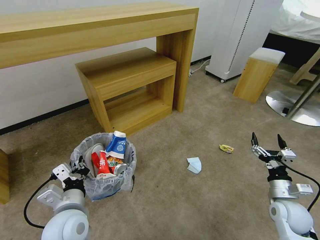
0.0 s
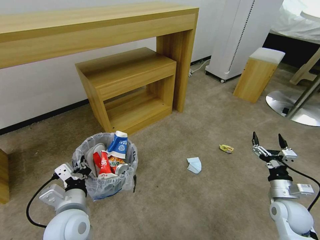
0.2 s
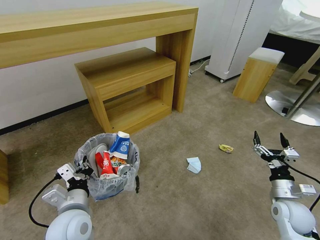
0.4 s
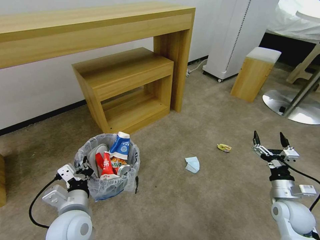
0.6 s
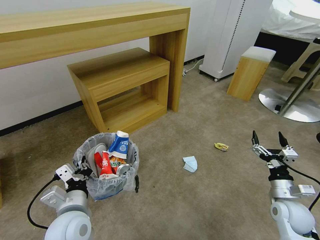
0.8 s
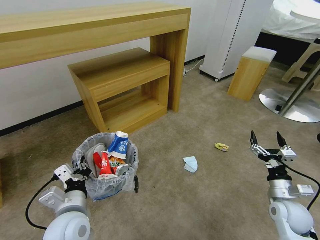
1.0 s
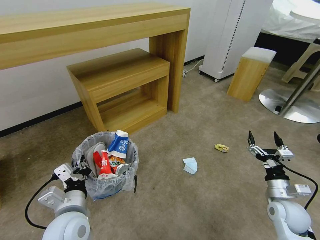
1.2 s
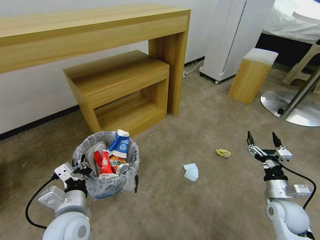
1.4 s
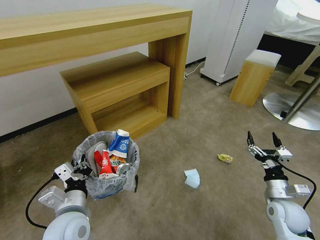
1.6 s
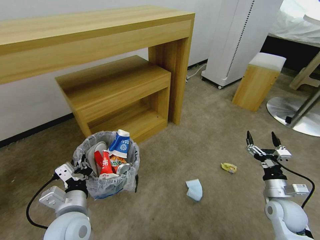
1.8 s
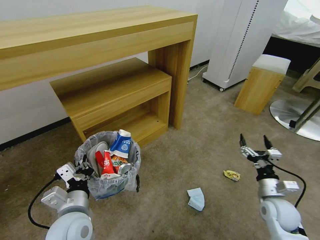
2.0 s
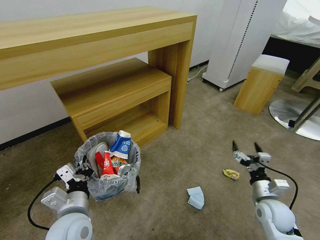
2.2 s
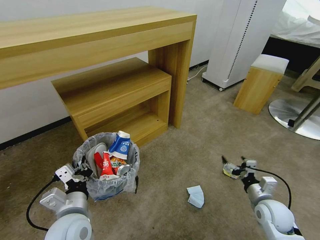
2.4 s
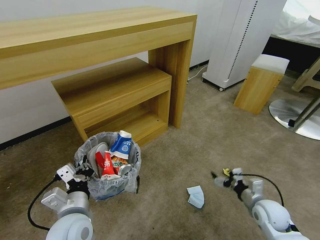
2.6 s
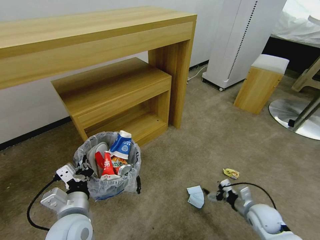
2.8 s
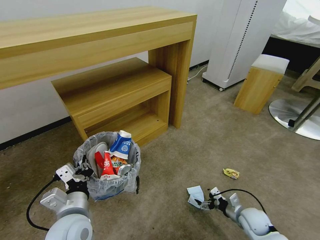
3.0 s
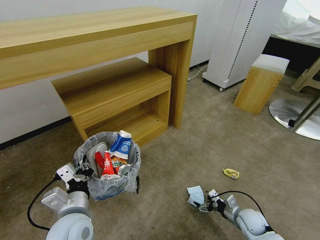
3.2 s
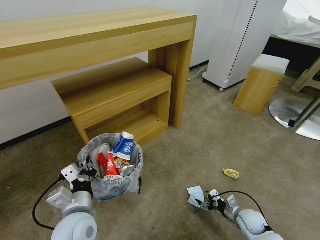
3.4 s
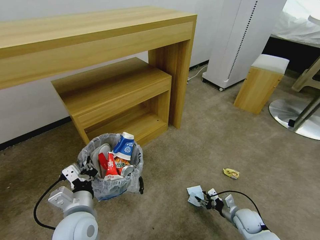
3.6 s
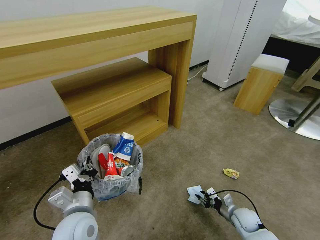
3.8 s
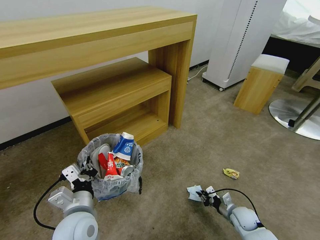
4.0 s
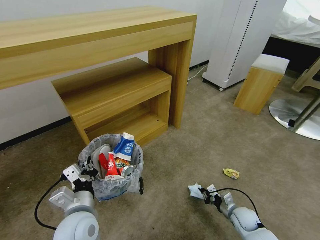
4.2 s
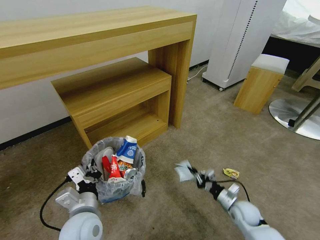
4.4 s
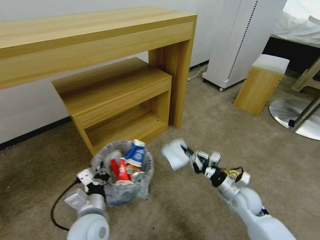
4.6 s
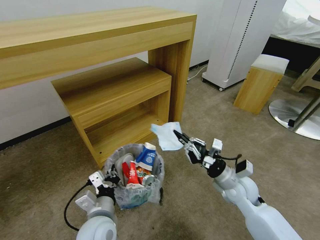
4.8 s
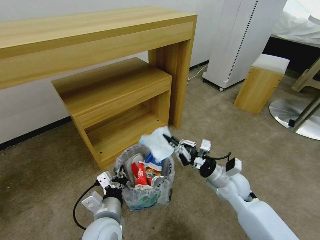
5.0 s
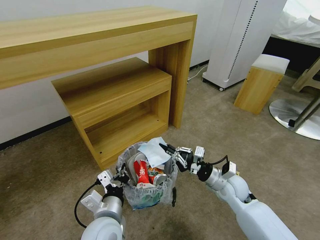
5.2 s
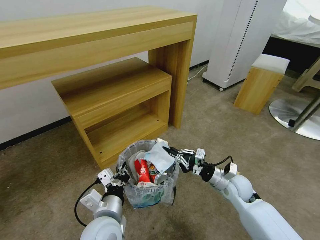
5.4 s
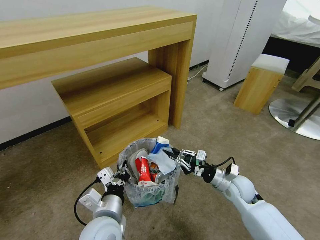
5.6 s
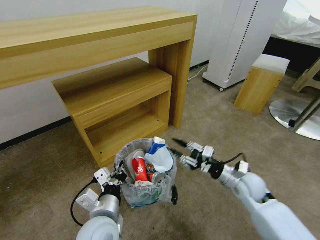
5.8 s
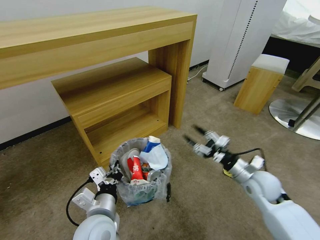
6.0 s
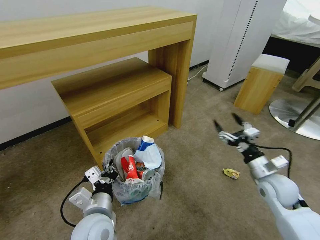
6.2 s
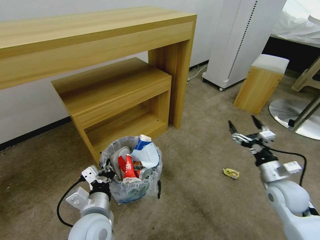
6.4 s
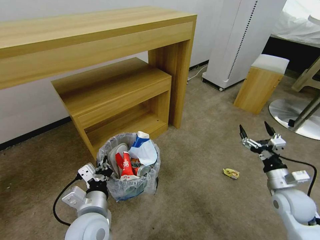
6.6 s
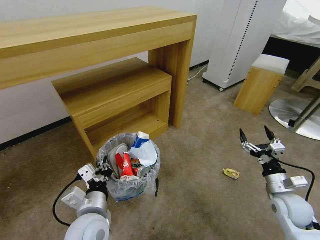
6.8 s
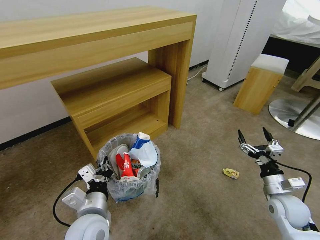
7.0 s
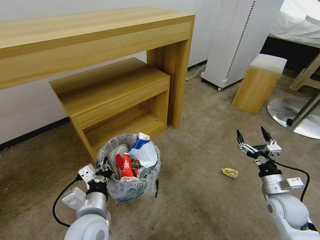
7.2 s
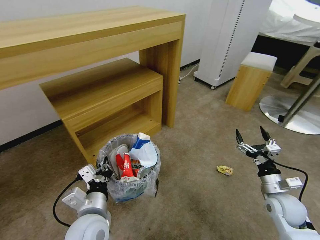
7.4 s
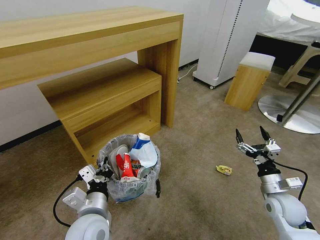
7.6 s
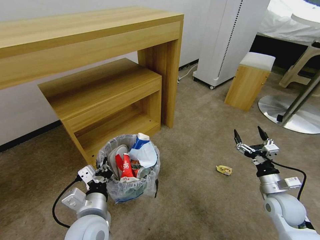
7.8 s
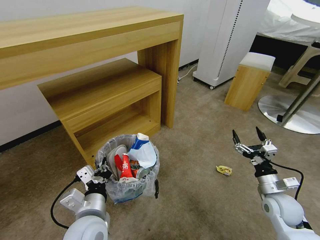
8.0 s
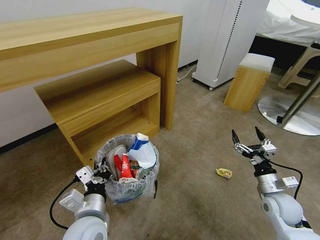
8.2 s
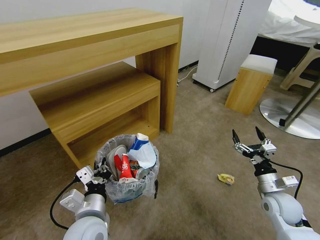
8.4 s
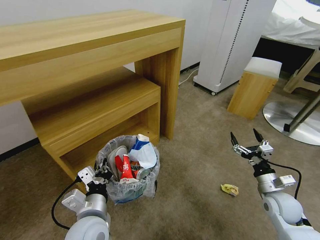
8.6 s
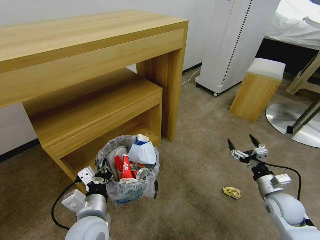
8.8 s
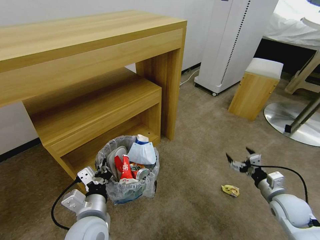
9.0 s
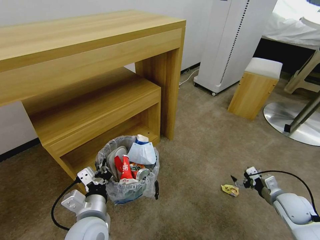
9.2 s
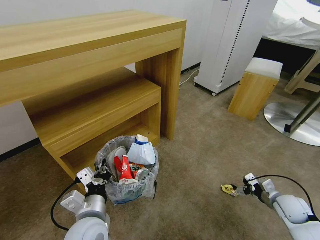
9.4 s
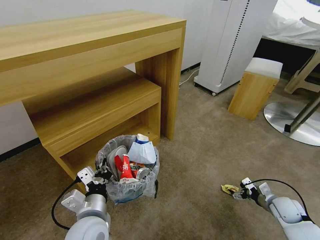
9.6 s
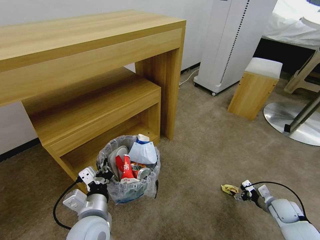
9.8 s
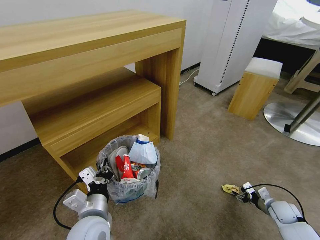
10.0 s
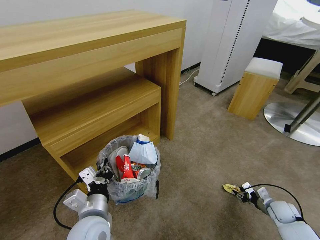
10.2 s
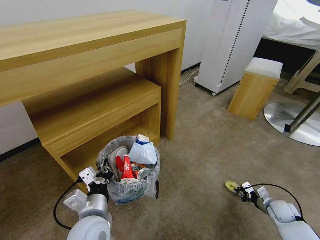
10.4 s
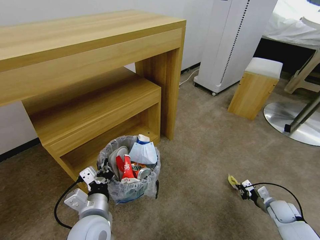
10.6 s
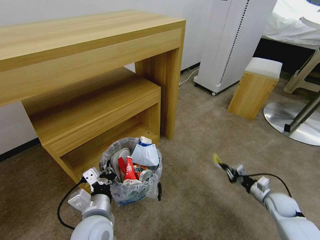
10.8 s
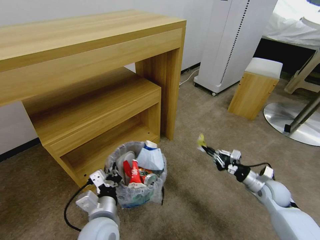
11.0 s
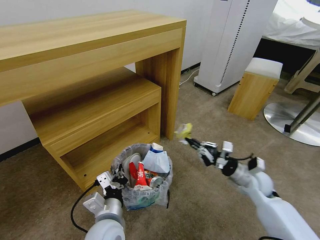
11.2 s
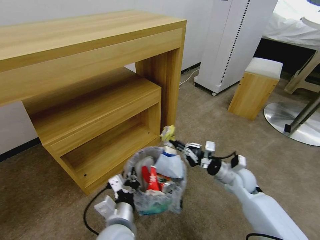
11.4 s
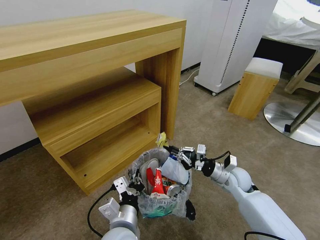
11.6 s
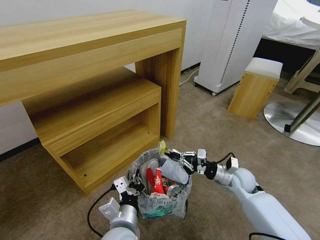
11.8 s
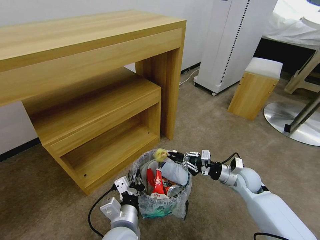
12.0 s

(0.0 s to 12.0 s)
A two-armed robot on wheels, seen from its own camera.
Task of the whole recording: Pick up the trash bin and place the garbage on the floor into it.
1.6 s - 3.0 s: The right gripper shifts some 10 cm downward.
3.0 s - 4.4 s: The right gripper closes.
4.4 s - 6.0 s: The right gripper moves upward, roughly 20 cm, and opens up.
6.0 s - 7.6 s: The right gripper heads to the right and backward, covering roughly 10 cm, and opens.
9.0 s - 10.4 s: The right gripper is displaced downward and to the right by approximately 15 cm, and closes.
10.4 s - 12.0 s: The left gripper shifts roughly 10 cm to the right. Meanwhile the right gripper goes roughly 25 cm to the left and upward.

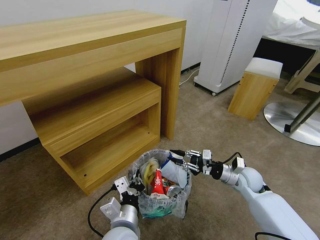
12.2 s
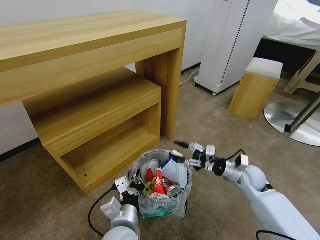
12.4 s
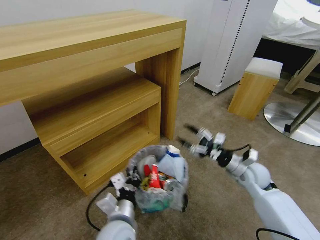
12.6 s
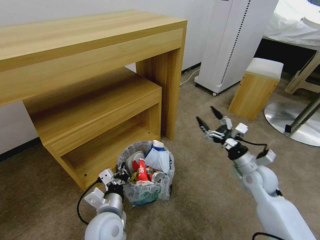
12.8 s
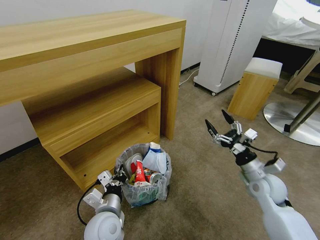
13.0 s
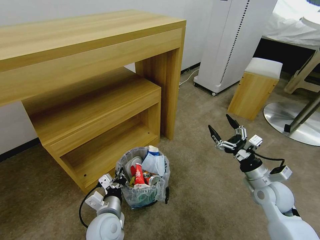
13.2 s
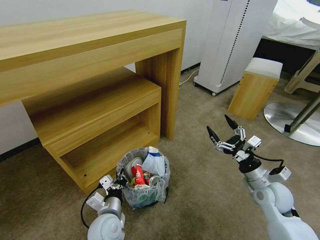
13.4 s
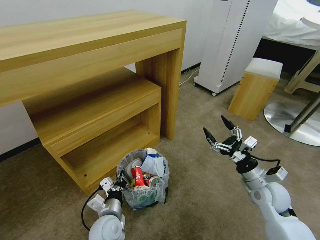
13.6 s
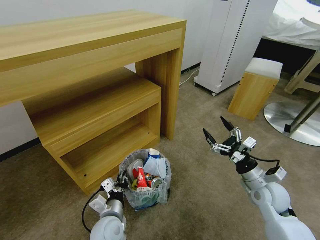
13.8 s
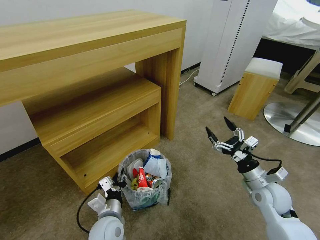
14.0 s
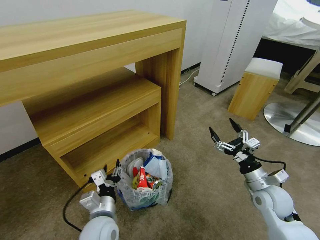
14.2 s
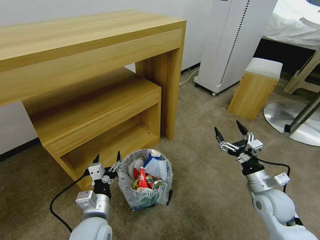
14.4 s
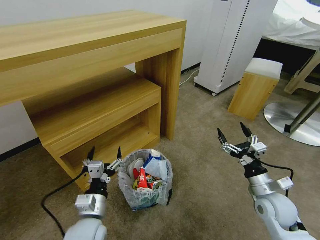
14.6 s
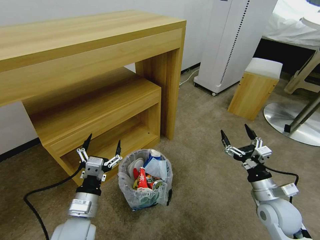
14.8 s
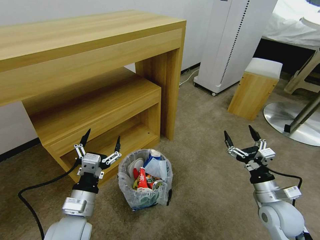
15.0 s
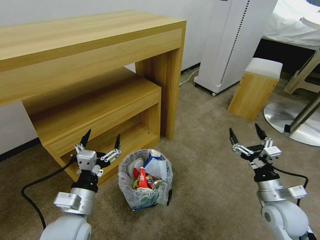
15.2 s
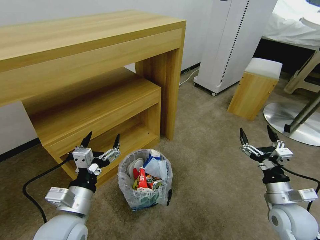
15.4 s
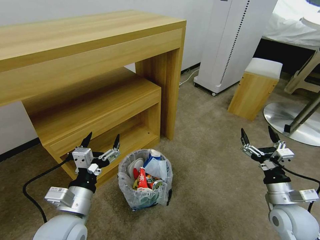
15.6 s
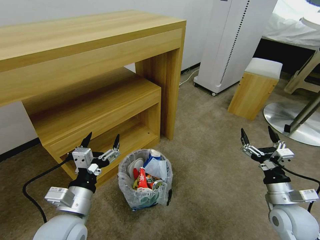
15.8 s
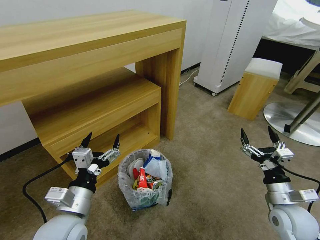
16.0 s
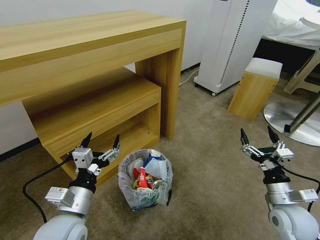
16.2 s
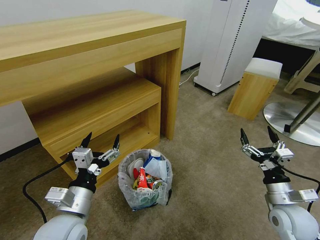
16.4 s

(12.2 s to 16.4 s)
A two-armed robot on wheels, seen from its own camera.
Task of the whole recording: Pick up the trash bin and place the garbage on the floor into it.
12.2 s - 13.6 s: The right gripper travels backward by about 5 cm, and opens its fingers, while the left gripper is displaced downward, to the left and forward by some 10 cm.
13.6 s - 15.0 s: The right gripper travels backward by some 5 cm. Meanwhile the left gripper goes approximately 15 cm upward and to the left, and opens.

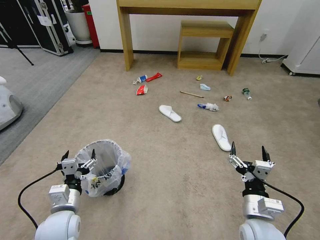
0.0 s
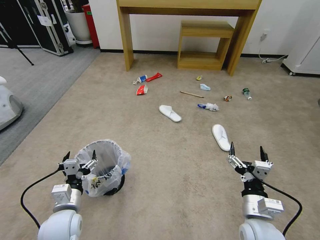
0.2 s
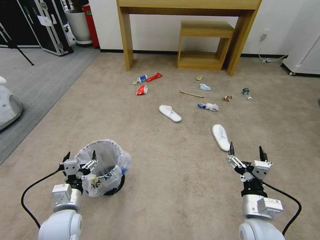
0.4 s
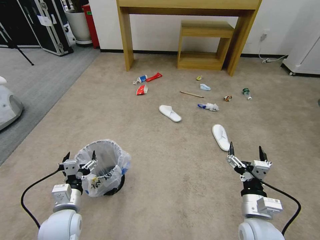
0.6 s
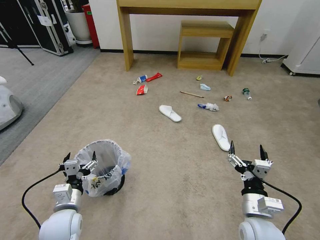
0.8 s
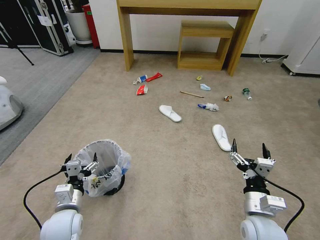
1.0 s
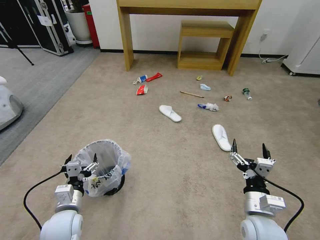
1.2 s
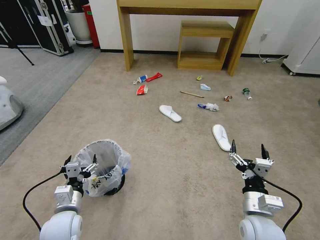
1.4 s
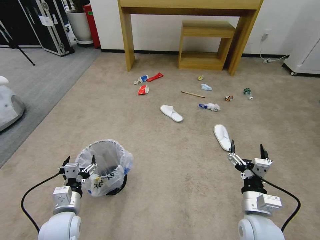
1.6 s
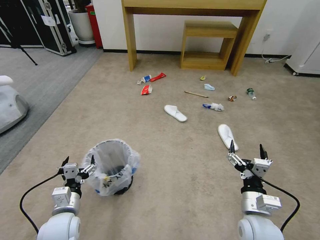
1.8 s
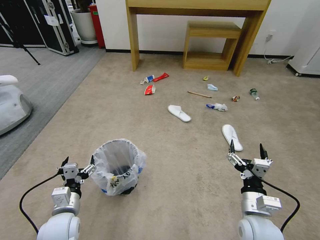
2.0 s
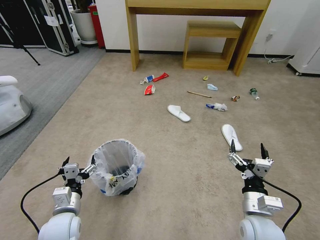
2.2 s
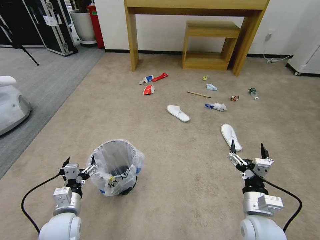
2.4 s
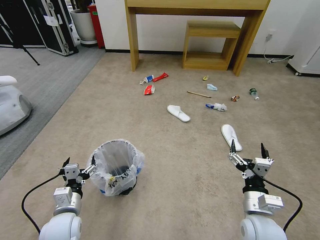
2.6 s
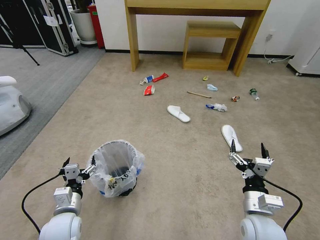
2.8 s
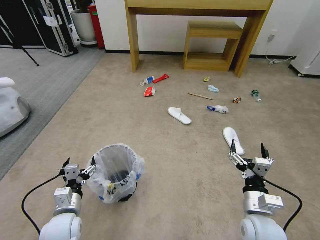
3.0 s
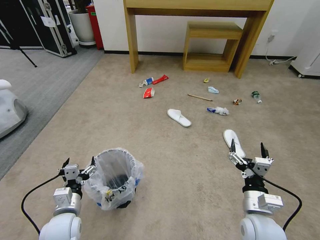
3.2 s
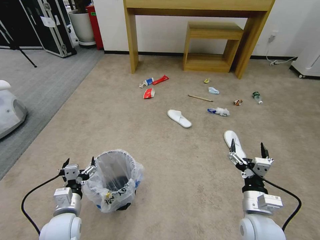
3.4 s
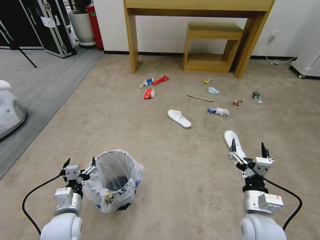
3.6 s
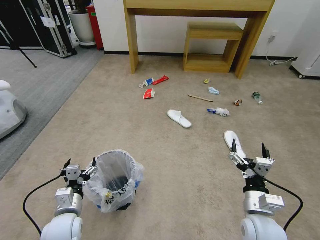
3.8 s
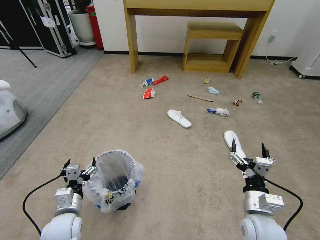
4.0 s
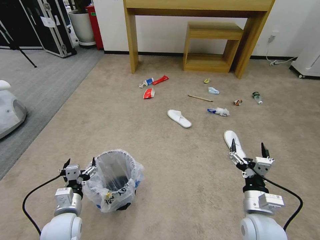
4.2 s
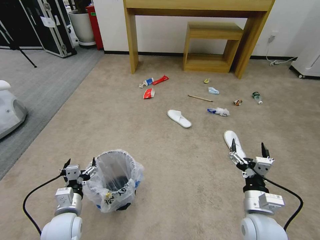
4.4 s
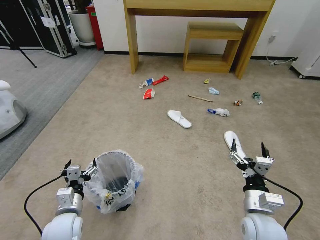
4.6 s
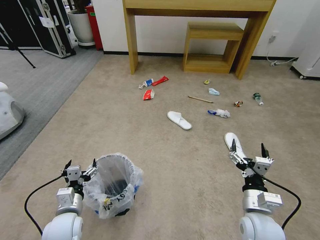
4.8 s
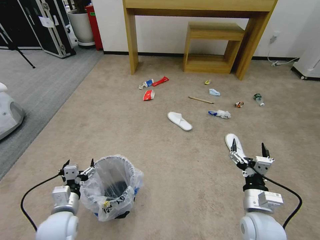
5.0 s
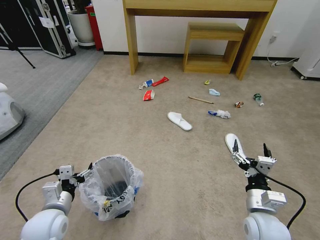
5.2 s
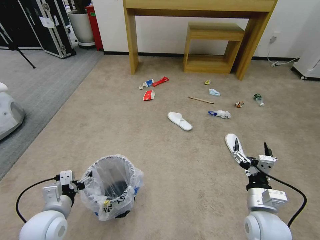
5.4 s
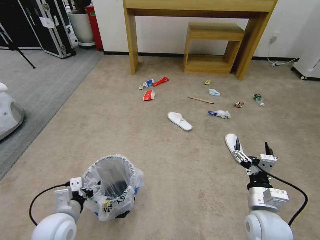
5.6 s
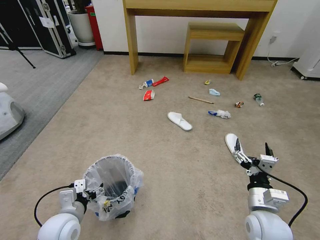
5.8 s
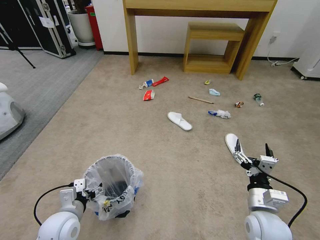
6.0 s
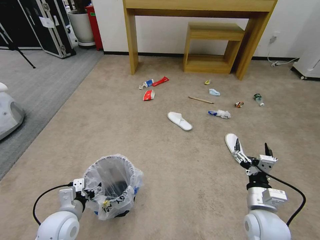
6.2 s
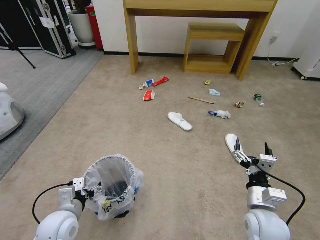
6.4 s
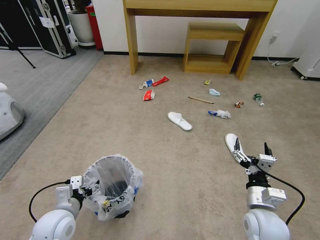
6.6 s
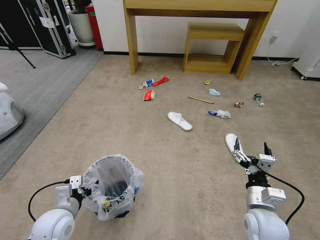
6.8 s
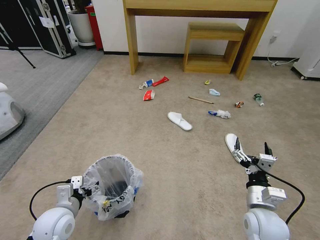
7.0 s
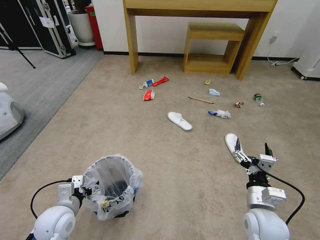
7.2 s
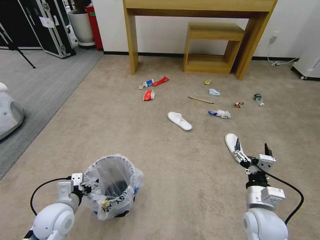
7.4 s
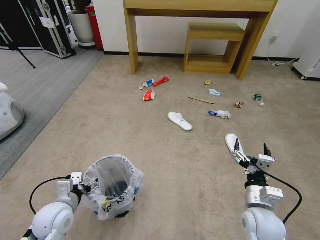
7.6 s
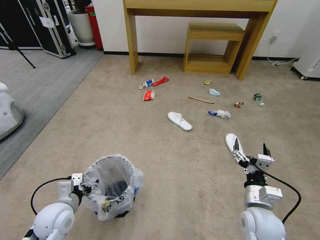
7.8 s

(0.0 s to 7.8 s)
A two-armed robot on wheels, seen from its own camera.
Task of the whole recording: Pick up the trash bin and place the garbage on the floor into it.
1.6 s - 3.2 s: Both grippers stay about where they are.
3.2 s - 4.6 s: Both grippers stay put.
6.2 s - 7.8 s: There are only small adjustments of the grippers.
